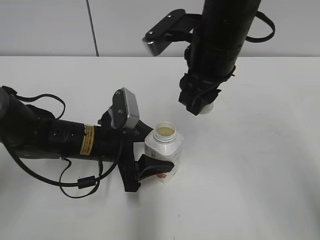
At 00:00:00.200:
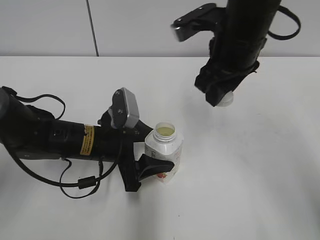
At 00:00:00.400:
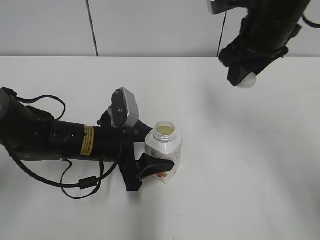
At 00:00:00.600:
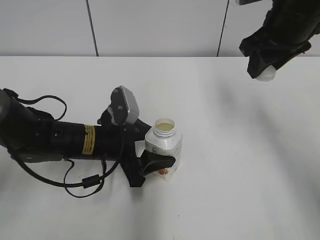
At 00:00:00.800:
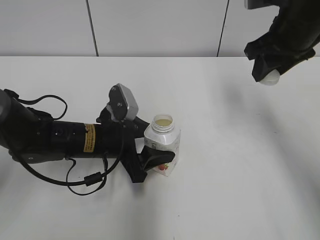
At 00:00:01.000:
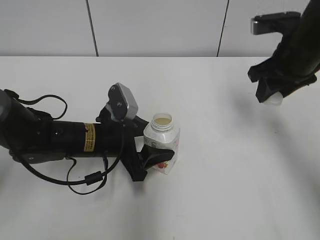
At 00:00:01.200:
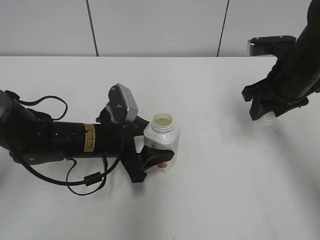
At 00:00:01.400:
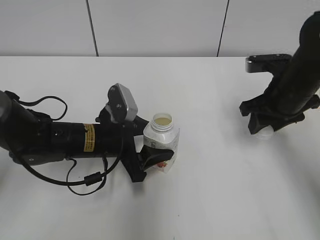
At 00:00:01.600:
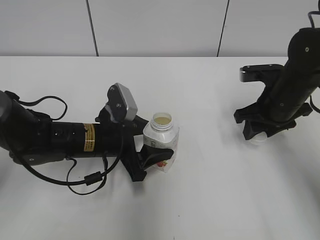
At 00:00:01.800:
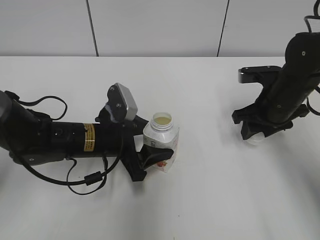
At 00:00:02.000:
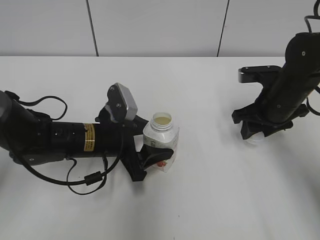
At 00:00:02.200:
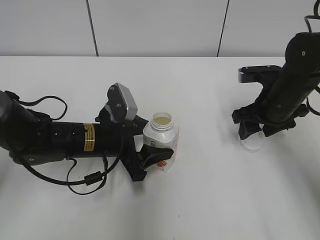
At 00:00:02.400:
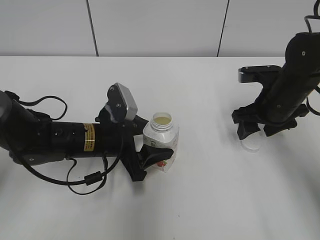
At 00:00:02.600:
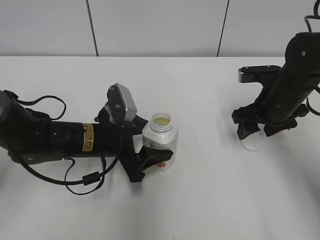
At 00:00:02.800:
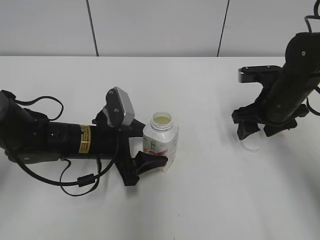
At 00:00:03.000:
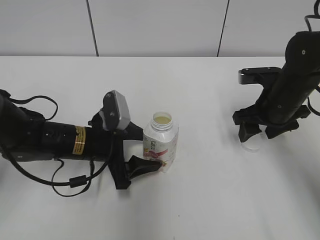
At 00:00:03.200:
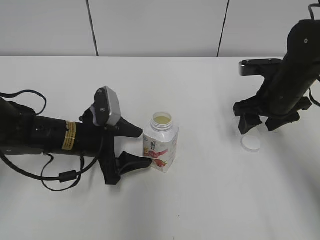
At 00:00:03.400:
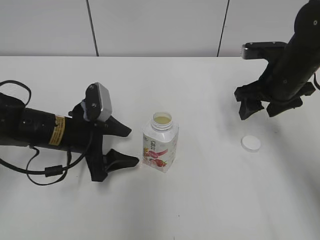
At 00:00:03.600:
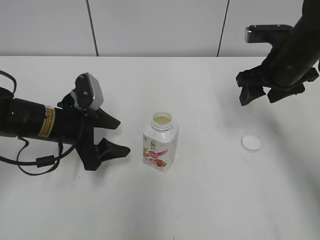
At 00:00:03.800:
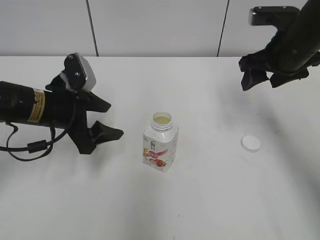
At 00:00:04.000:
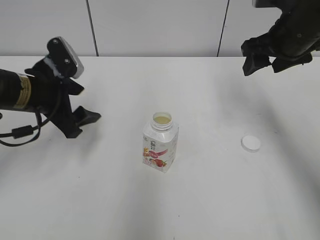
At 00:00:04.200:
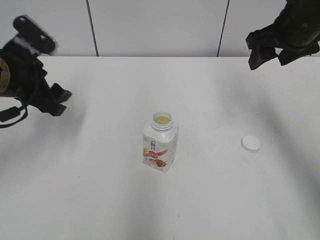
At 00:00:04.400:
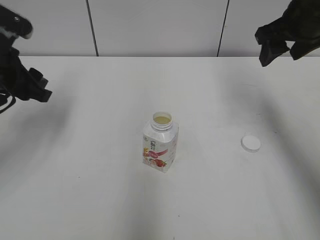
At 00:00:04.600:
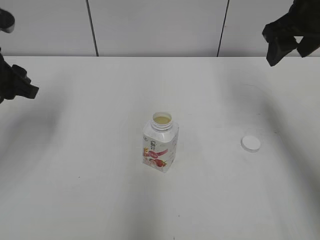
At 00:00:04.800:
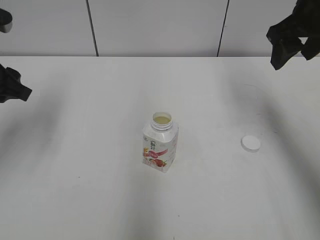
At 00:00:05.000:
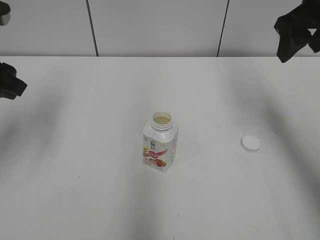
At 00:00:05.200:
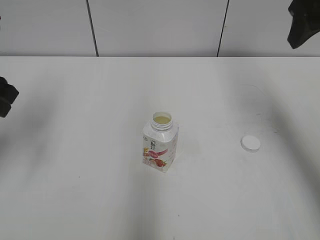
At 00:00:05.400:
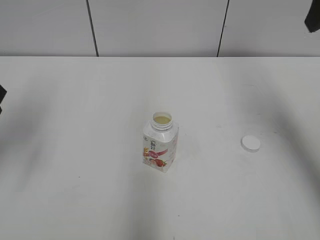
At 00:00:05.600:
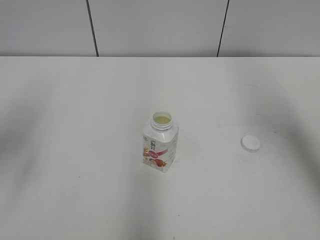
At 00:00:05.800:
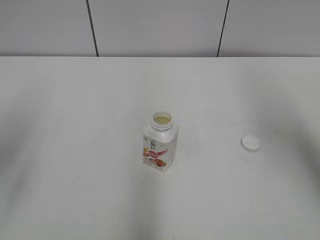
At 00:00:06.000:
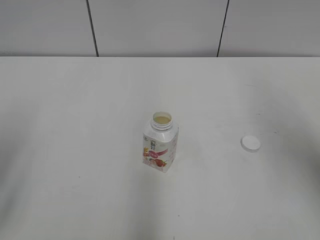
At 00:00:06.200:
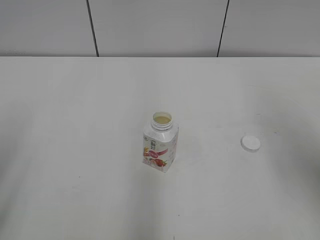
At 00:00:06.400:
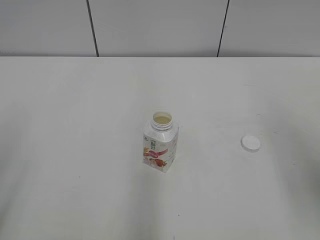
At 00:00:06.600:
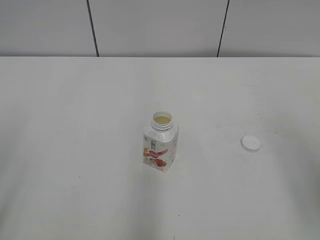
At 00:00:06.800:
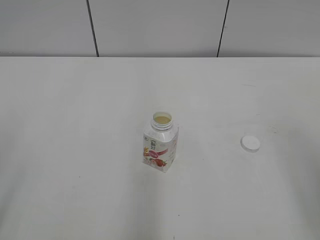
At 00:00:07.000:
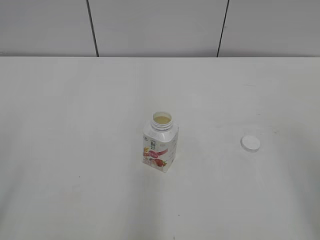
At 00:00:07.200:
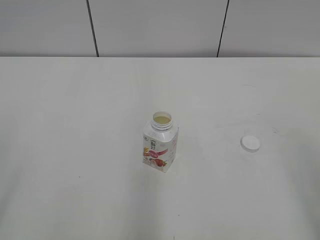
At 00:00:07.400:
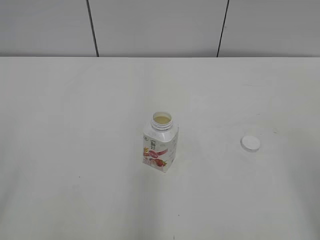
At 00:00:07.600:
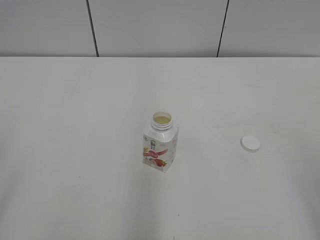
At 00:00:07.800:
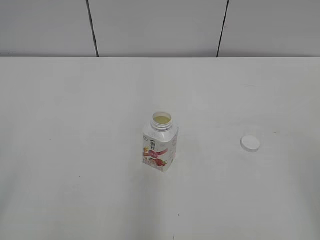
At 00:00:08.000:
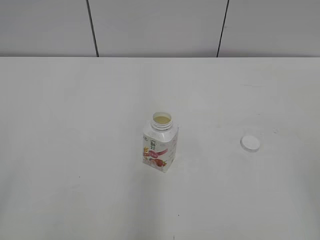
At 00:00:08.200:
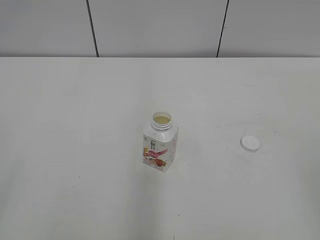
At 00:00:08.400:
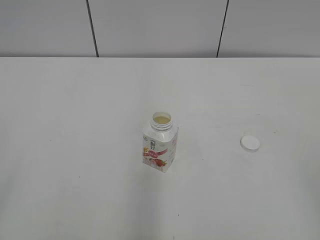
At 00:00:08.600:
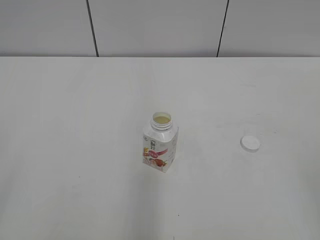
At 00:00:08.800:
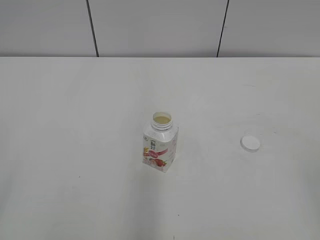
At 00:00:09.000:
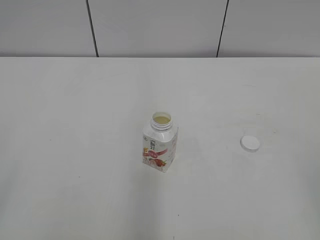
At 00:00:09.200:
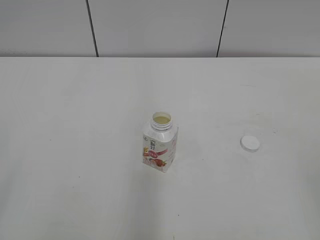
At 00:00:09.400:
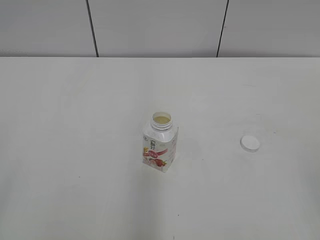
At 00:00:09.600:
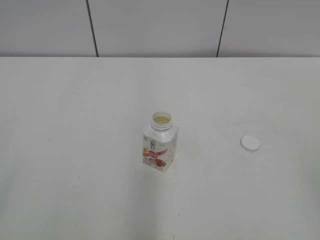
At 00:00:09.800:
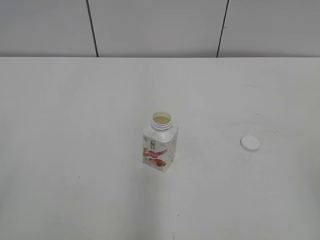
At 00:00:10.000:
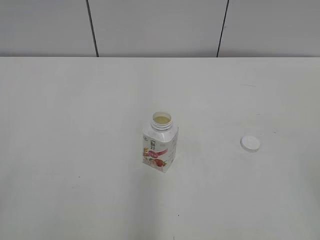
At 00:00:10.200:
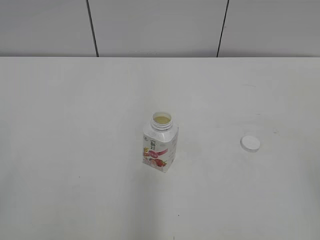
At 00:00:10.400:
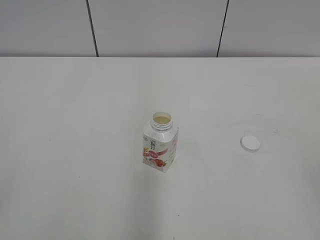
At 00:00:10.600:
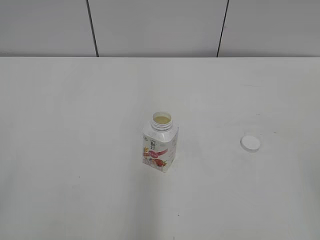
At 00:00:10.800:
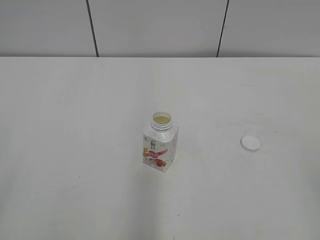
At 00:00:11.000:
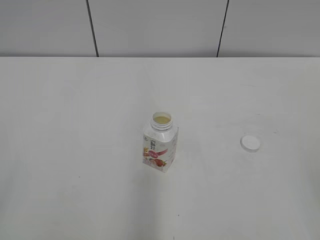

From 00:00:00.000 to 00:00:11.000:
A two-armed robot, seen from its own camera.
Step, from 00:00:00.000 to 00:00:02.400: Place the bottle cap on the right.
Step, from 00:00:02.600 to 00:00:03.200: Place the Yili Changqing with the left hand.
From 00:00:00.000 to 00:00:01.600: The right gripper is displaced to the right and downward by approximately 20 cm.
From 00:00:01.600 to 00:00:03.200: The right gripper opens.
From 00:00:03.200 to 00:00:04.800: The right gripper moves upward, some 15 cm; the left gripper is displaced upward and to the left by roughly 20 cm, and closes its fingers.
From 00:00:04.800 to 00:00:06.200: The grippers both shift backward by roughly 20 cm.
From 00:00:06.200 to 00:00:07.800: The right gripper heads backward and downward, covering approximately 15 cm.
From 00:00:09.400 to 00:00:11.000: Both grippers stay about where they are.
